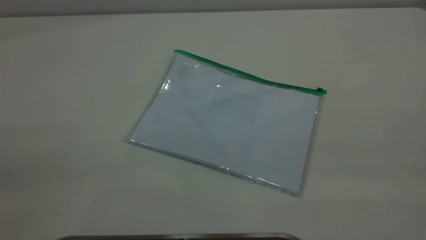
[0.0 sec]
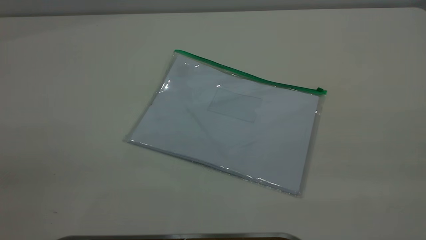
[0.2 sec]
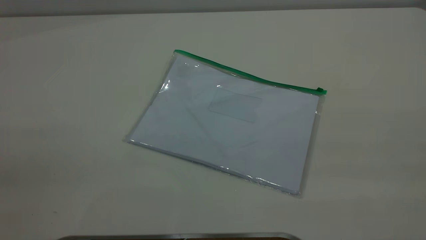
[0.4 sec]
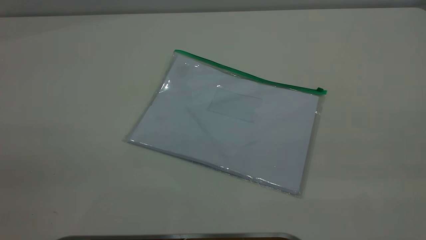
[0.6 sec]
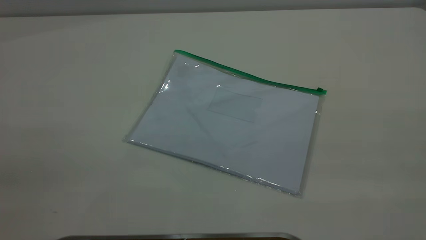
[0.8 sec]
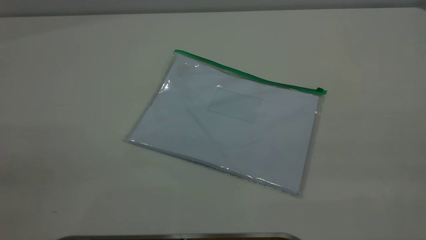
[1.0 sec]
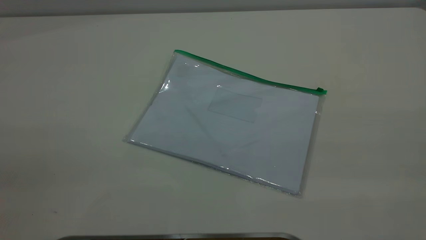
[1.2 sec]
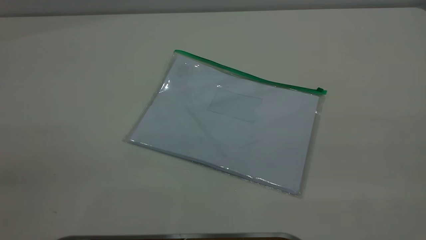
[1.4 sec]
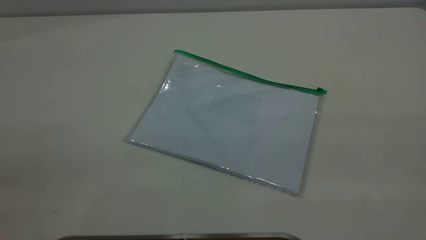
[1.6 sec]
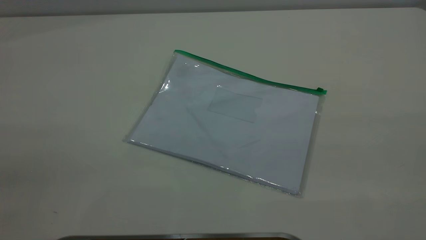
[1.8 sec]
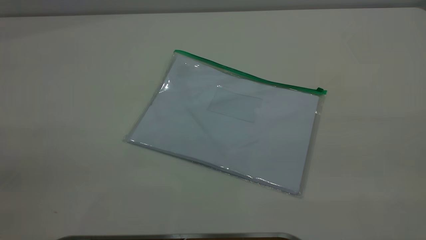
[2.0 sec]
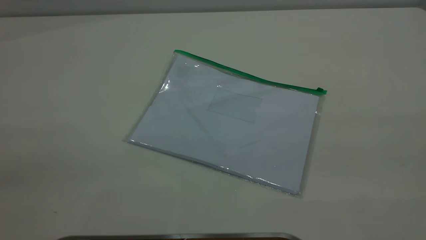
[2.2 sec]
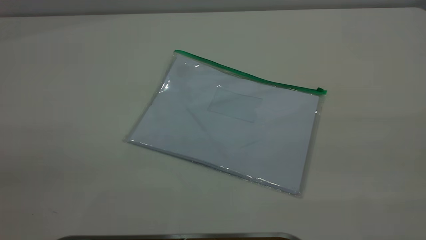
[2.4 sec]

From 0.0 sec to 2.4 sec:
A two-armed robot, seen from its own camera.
From 0.0 sec to 1.2 sec: The two grippers keep their place.
